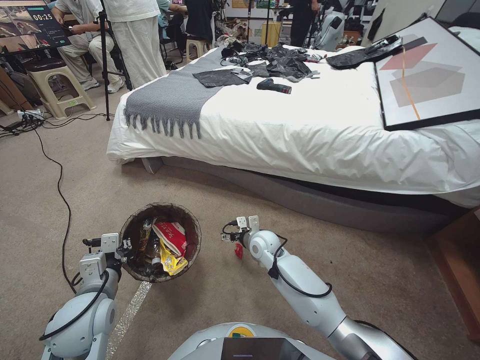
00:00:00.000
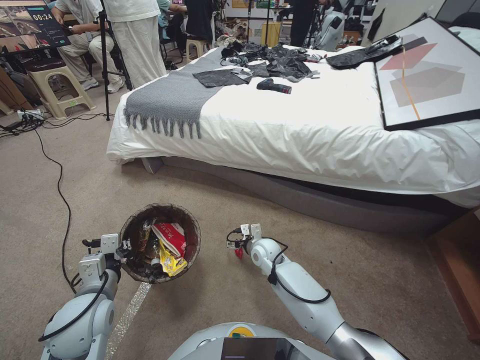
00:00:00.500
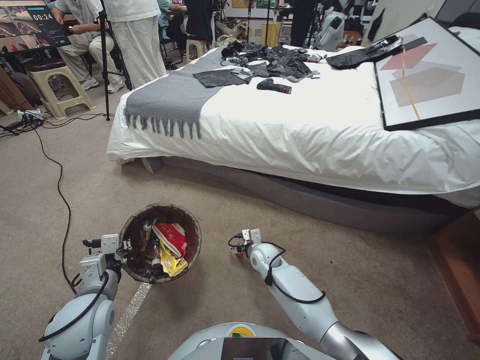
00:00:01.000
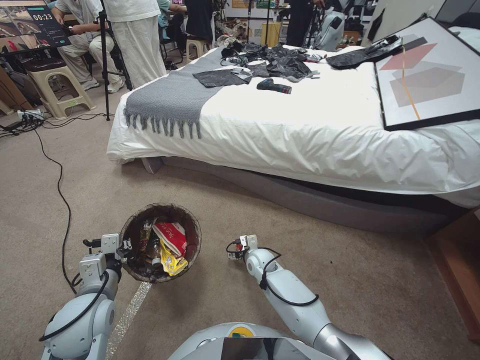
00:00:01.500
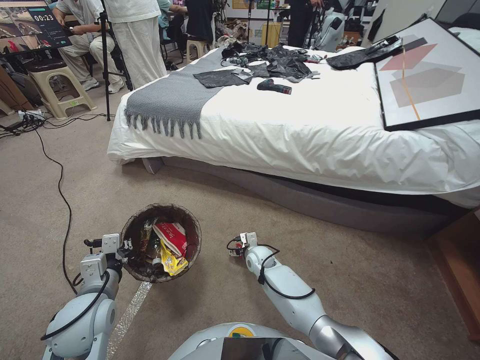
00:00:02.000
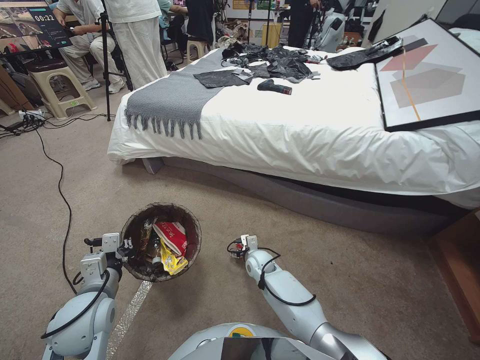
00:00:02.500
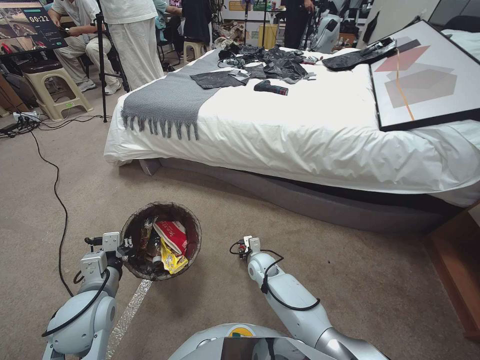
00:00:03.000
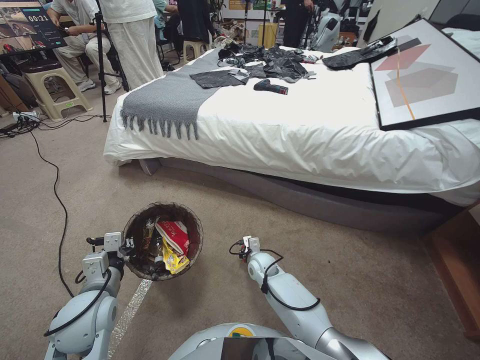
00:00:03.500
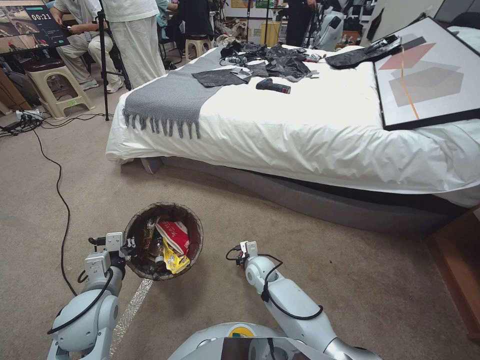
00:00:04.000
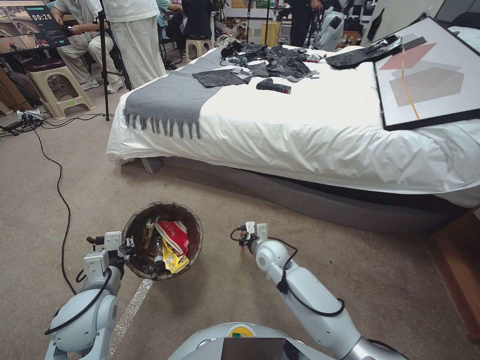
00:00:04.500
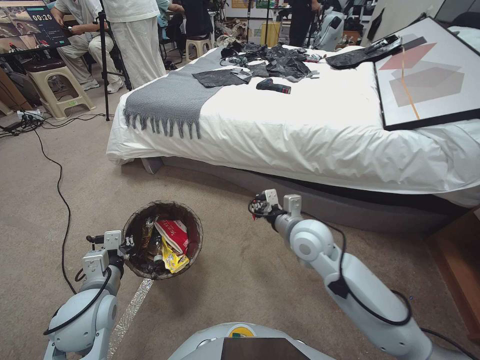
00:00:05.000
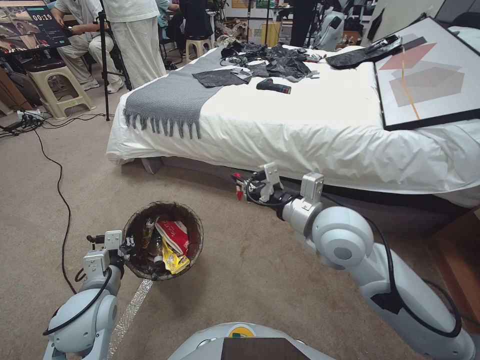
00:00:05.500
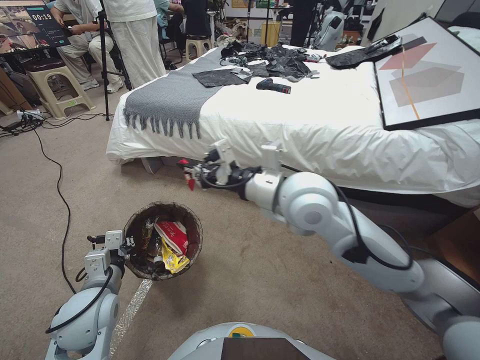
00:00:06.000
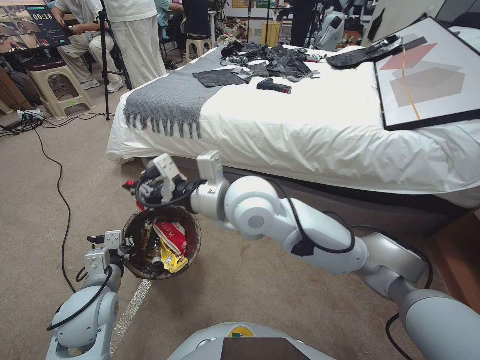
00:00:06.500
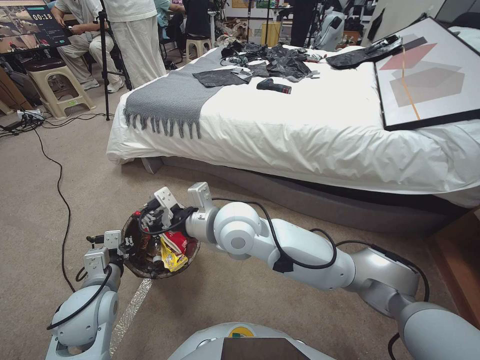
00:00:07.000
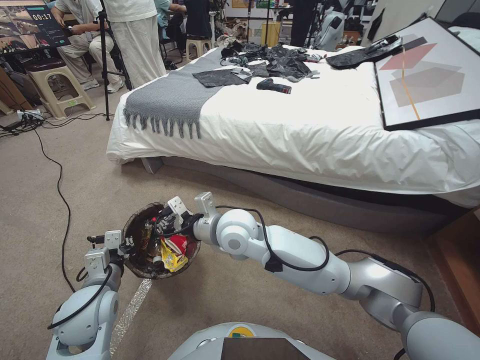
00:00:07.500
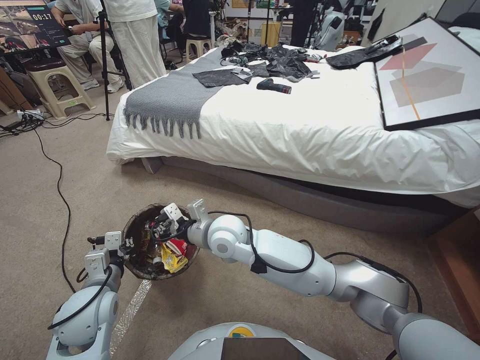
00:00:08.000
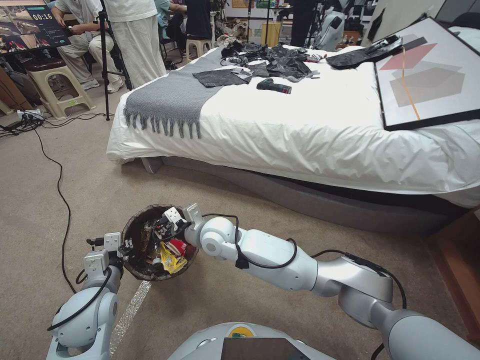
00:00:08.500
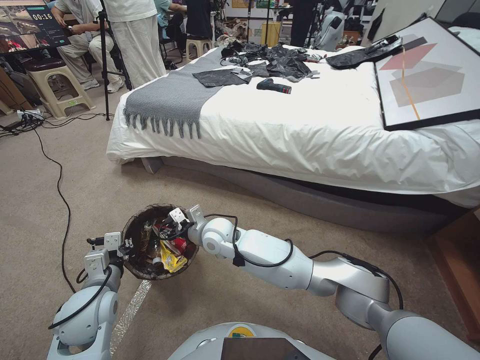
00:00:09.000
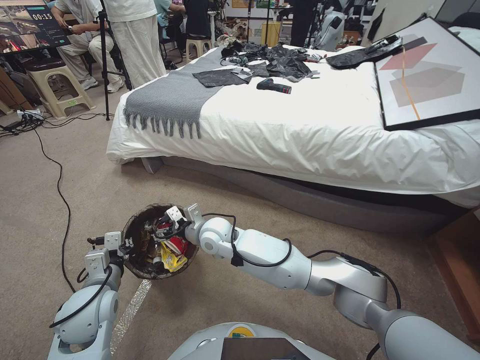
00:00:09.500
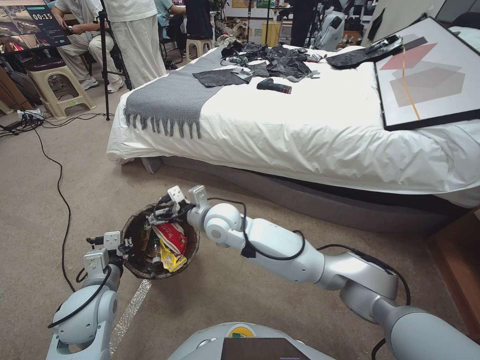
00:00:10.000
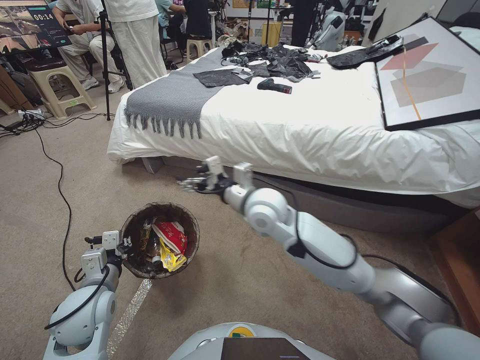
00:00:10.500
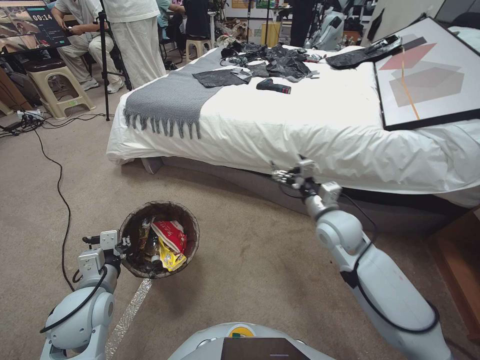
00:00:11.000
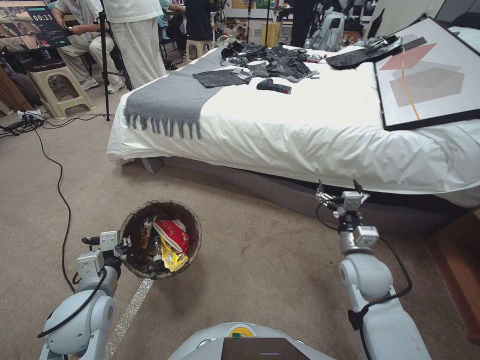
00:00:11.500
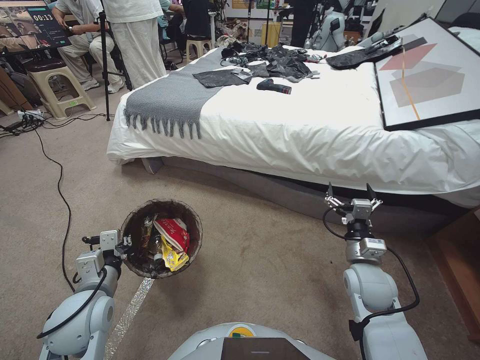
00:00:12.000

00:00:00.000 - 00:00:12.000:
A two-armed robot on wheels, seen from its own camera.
Task of the whole recording: Pick up the trash bin, then pick up the garbage from the floor and place it into the trash bin.
00:00:00.000 - 00:00:02.000: The right gripper goes roughly 10 cm downward.
00:00:02.000 - 00:00:04.000: The right gripper closes.
00:00:04.000 - 00:00:06.000: The right gripper moves upward, approximately 40 cm.
00:00:06.000 - 00:00:08.000: The right gripper goes approximately 25 cm downward and to the left.
00:00:08.000 - 00:00:10.000: The right gripper opens.
00:00:10.000 - 00:00:12.000: The right gripper travels to the right by about 35 cm.

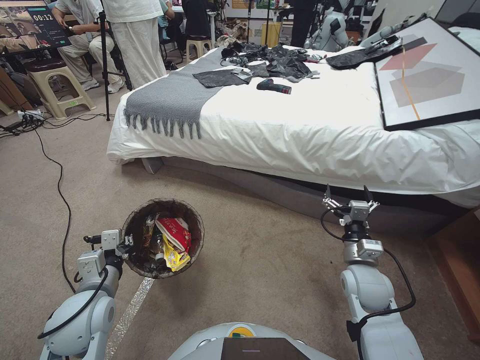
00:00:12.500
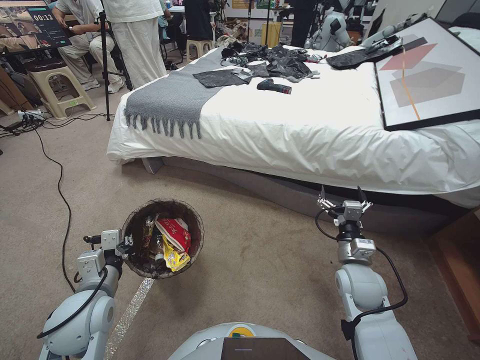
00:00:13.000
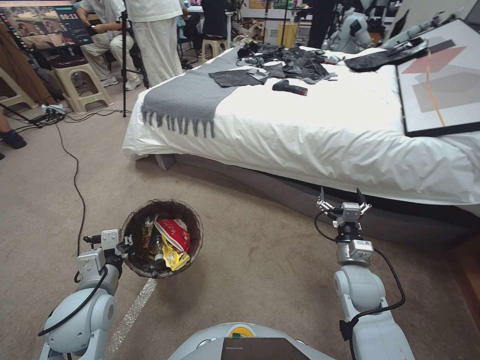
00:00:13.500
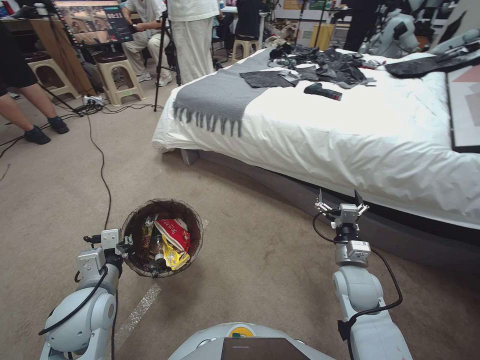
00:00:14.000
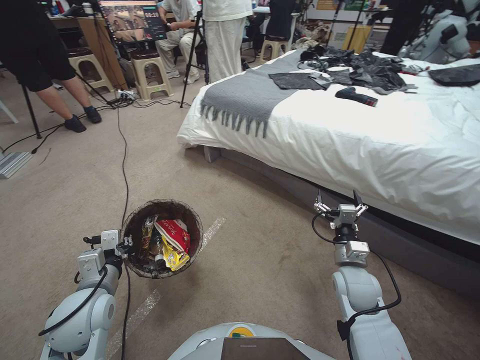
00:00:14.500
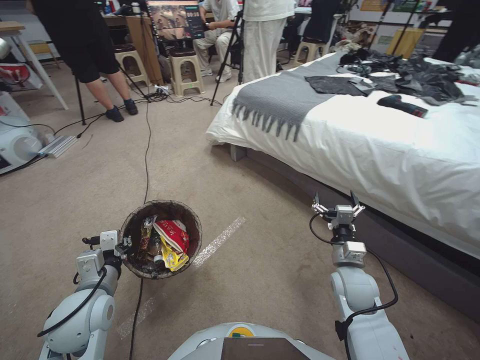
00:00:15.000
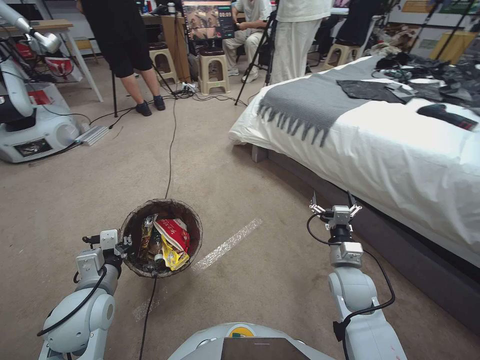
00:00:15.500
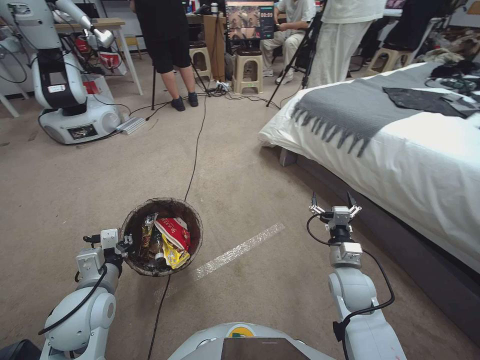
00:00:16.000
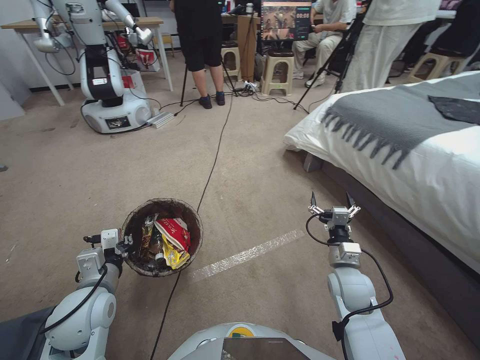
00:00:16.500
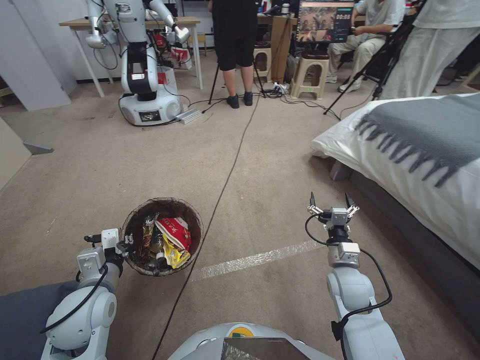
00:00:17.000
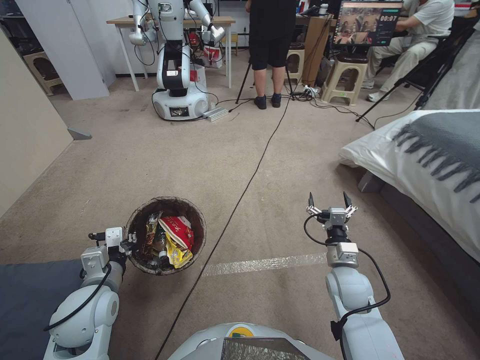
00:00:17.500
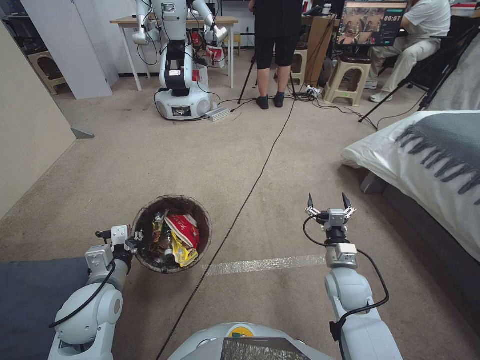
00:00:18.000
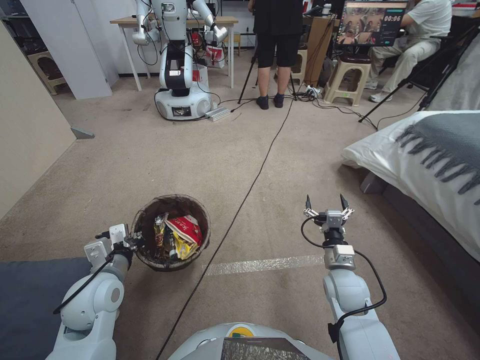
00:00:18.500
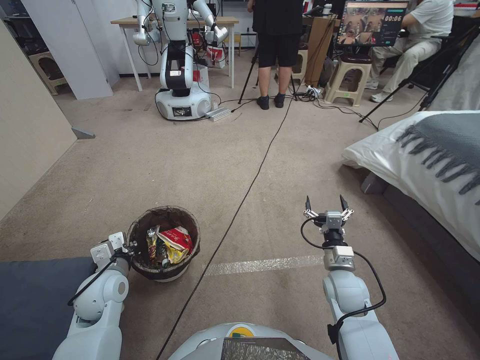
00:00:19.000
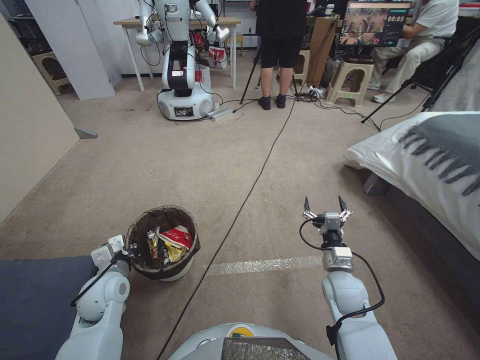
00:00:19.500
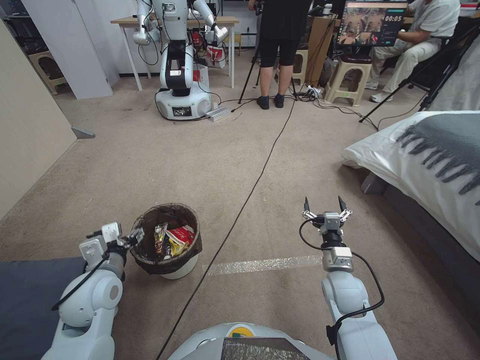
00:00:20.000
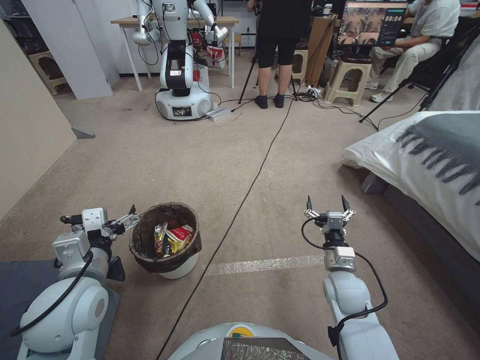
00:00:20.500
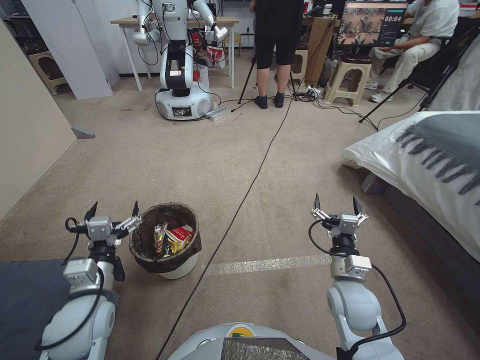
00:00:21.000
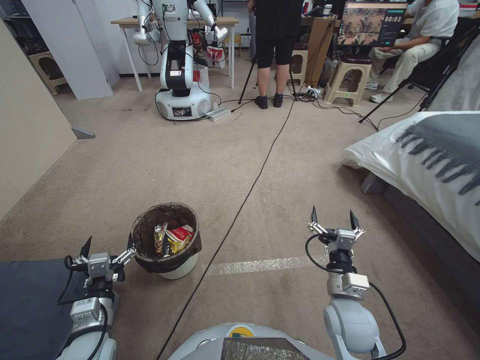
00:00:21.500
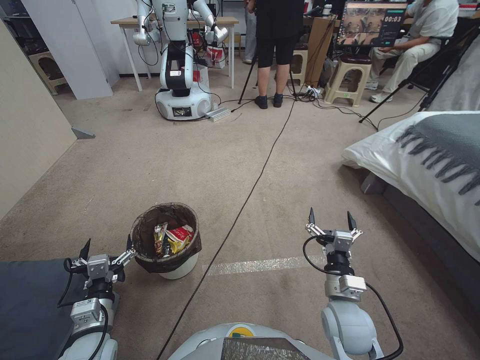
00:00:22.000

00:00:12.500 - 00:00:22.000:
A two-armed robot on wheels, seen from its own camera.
Task of the whole recording: Pick up the trash bin, then pick up the garbage from the floor and place it into the trash bin.
00:00:18.000 - 00:00:20.000: The left gripper opens up.
00:00:20.000 - 00:00:22.000: The left gripper goes approximately 10 cm backward and downward, and opens its fingers. The right gripper shifts approximately 5 cm backward.
